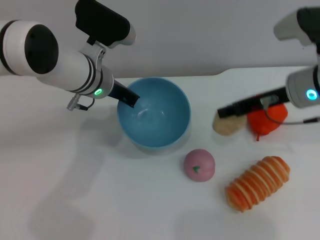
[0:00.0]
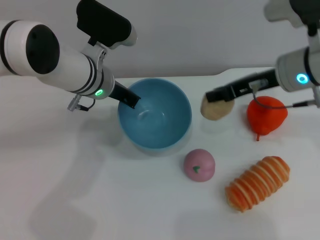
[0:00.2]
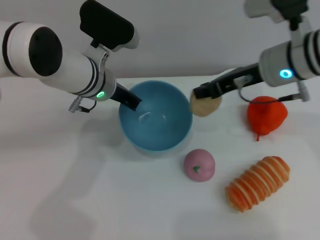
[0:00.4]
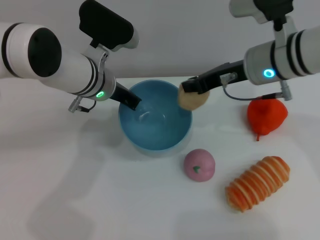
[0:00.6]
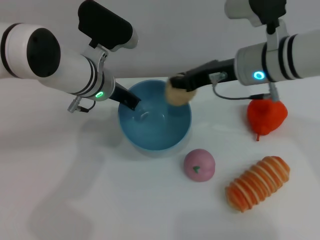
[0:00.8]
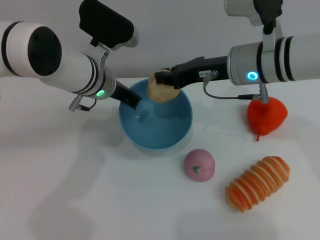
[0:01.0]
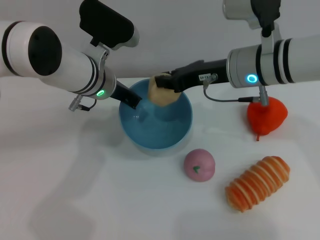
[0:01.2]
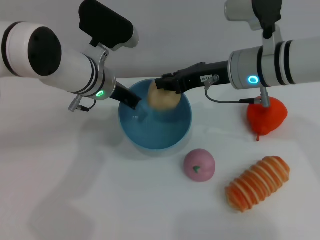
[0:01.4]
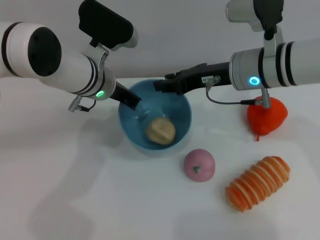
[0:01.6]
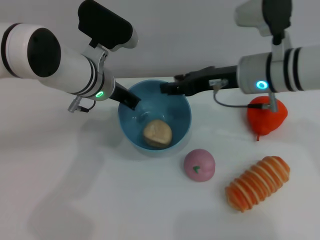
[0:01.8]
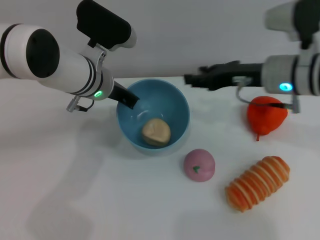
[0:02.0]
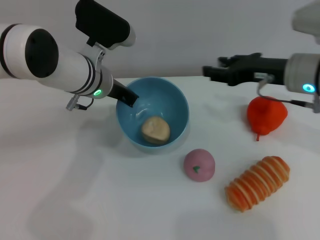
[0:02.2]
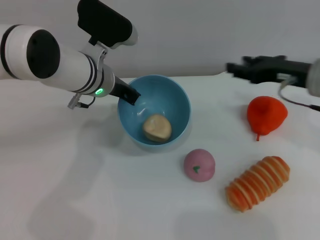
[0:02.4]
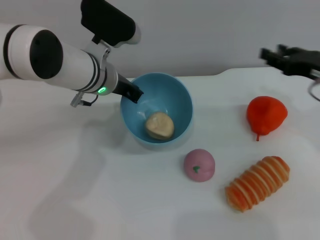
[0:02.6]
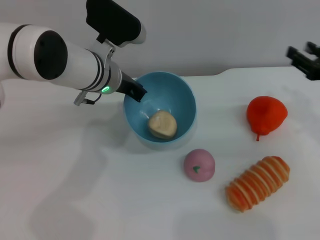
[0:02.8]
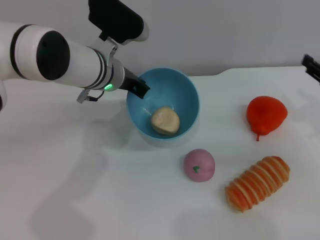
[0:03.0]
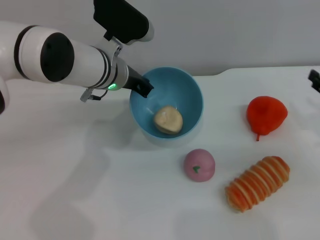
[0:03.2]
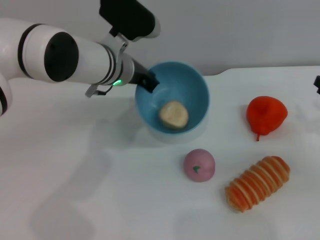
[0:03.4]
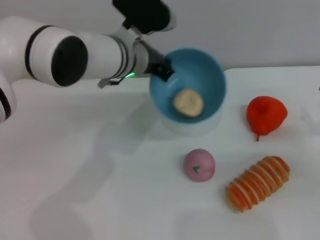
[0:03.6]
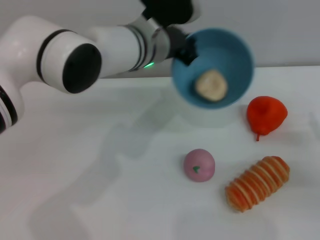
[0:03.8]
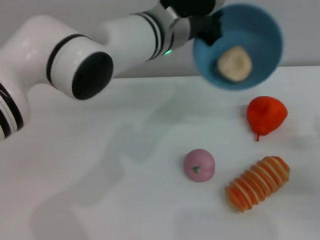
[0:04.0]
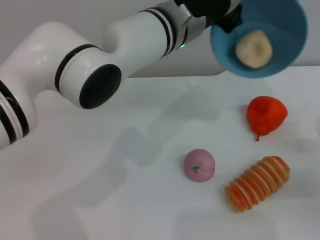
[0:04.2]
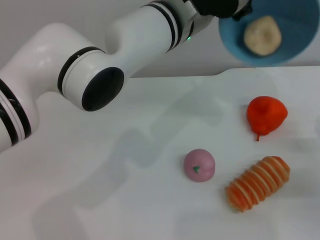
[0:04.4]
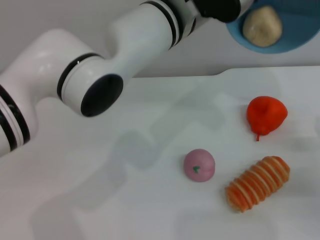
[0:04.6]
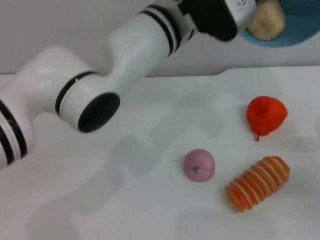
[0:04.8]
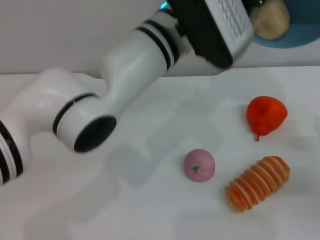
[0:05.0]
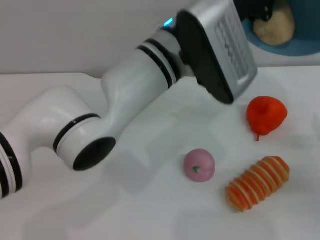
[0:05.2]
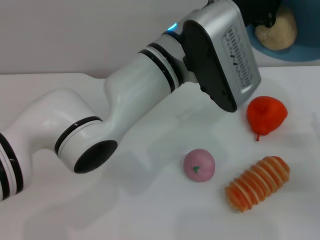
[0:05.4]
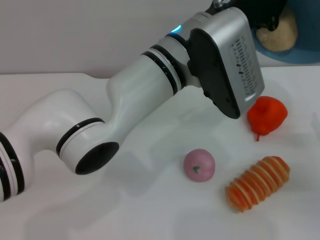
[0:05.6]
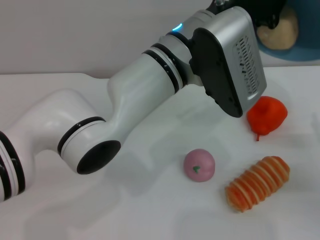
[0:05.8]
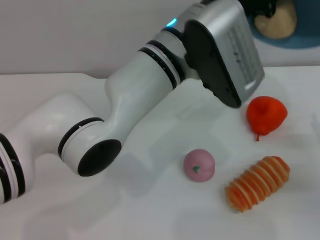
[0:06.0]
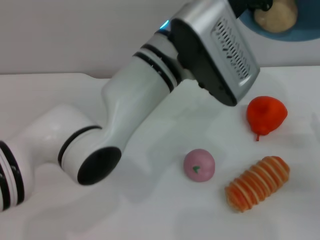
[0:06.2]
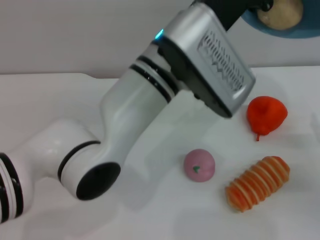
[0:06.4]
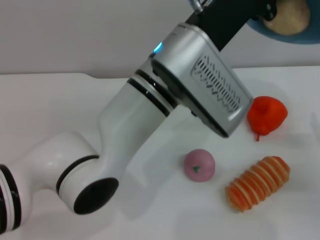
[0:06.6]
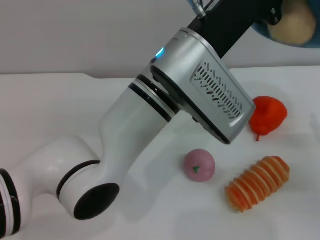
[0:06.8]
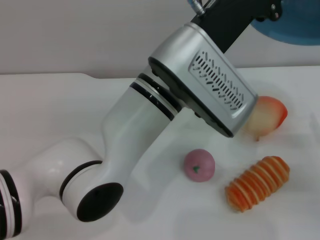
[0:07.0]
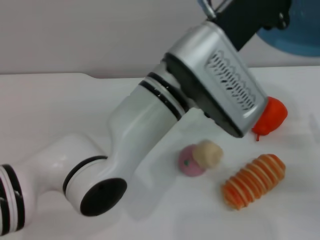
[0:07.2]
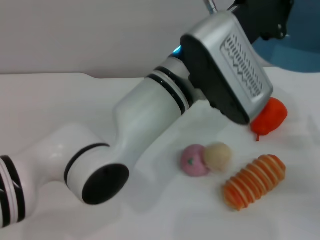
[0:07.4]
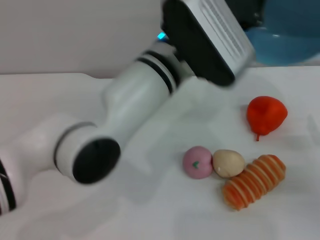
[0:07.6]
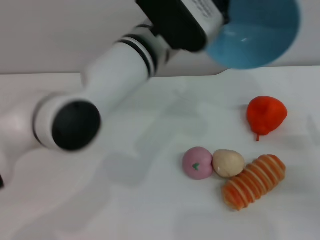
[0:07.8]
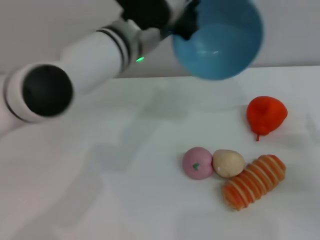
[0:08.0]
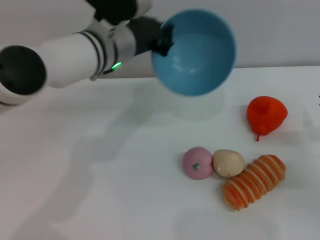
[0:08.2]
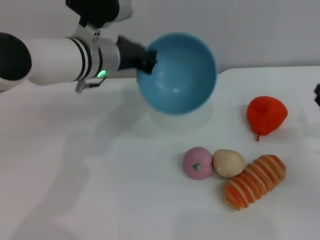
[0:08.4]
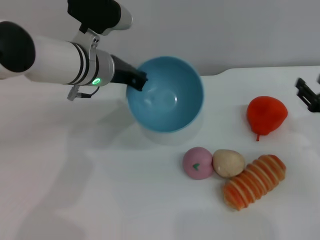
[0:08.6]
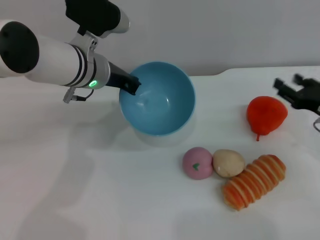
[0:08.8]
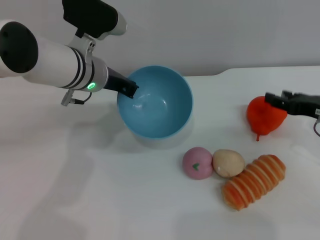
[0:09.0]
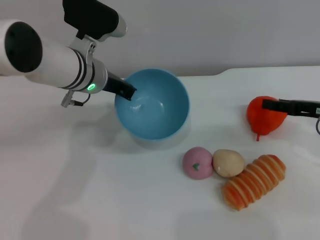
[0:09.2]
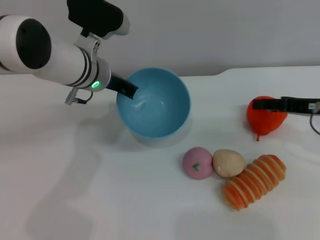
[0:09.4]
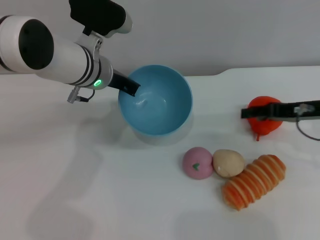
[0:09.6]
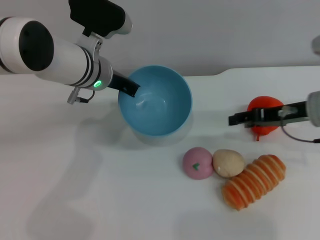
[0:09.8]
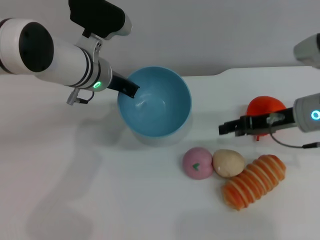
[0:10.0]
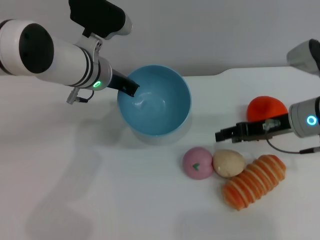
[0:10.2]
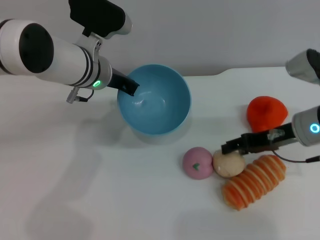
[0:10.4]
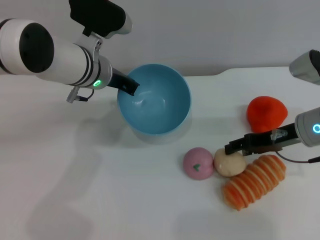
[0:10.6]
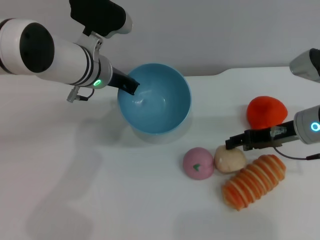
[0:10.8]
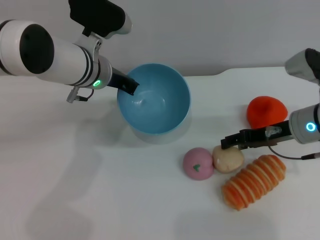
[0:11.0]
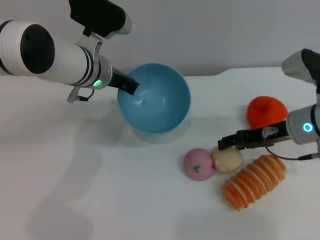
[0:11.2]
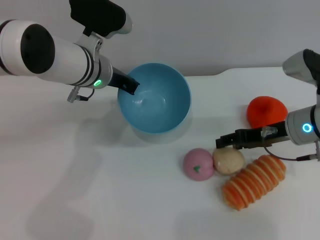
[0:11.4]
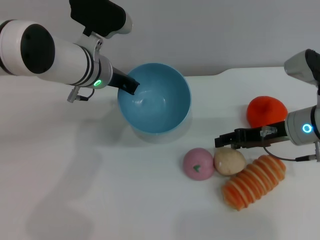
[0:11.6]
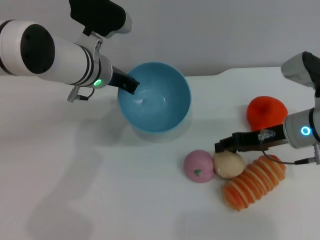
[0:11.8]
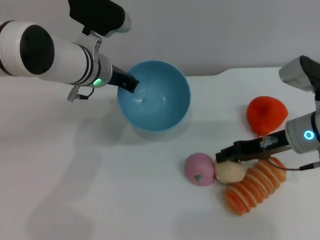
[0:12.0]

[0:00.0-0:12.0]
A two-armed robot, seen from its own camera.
Task of the whole recording: put the egg yolk pastry into the blue bowl and pour it out repeatedly.
Step, 0:00.2 to 0:01.6: Place the egg yolk pastry into the bowl.
Step, 0:01.8 to 0:07.8: Pour the egg yolk pastry out of bowl.
0:00.0 to 0:01.6: The right gripper heads to the left, covering roughly 5 cm.
0:01.6 to 0:03.0: The right gripper heads to the right, covering roughly 20 cm, and opens up.
0:03.0 to 0:04.4: The right gripper travels downward and backward by about 10 cm, while the left gripper travels to the right and upward by some 15 cm.
0:04.4 to 0:06.0: The left gripper heads backward, covering roughly 5 cm.
0:07.6 to 0:09.0: The left gripper goes approximately 15 cm to the left, forward and downward, while the right gripper moves upward and forward, about 10 cm.
0:09.0 to 0:10.4: The right gripper is displaced to the left by roughly 5 cm.
0:10.4 to 0:12.0: The two grippers keep their place.

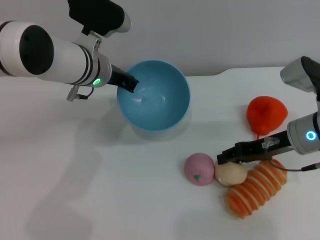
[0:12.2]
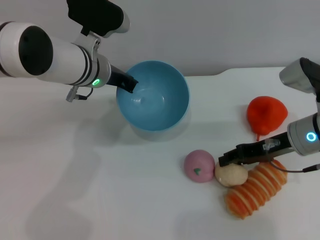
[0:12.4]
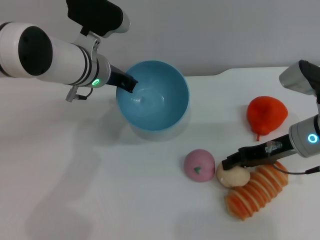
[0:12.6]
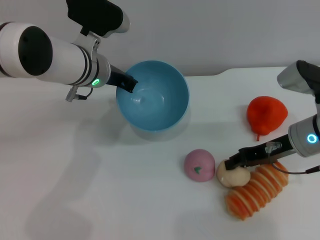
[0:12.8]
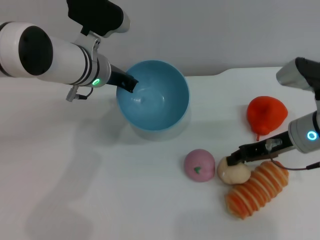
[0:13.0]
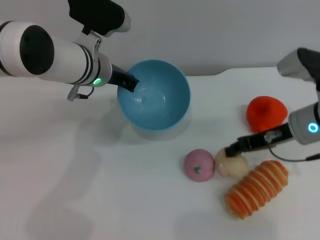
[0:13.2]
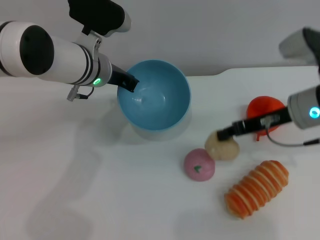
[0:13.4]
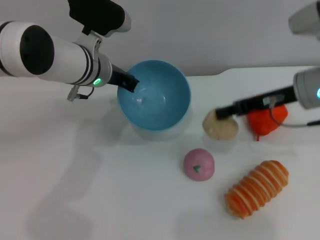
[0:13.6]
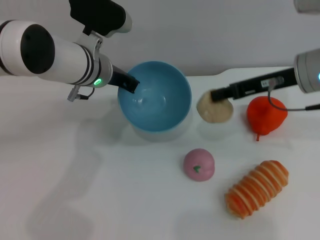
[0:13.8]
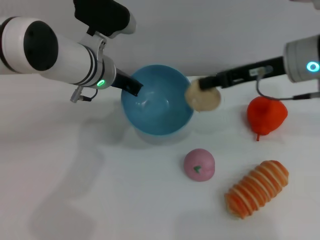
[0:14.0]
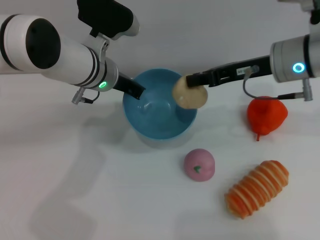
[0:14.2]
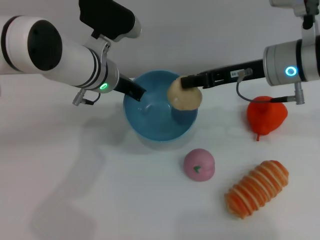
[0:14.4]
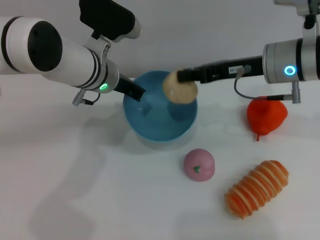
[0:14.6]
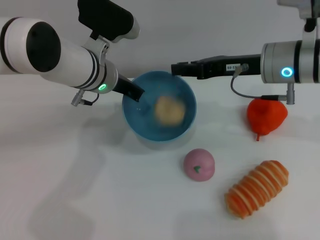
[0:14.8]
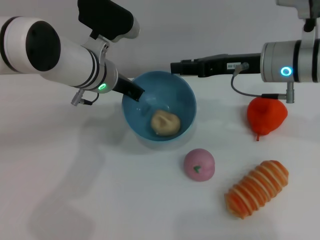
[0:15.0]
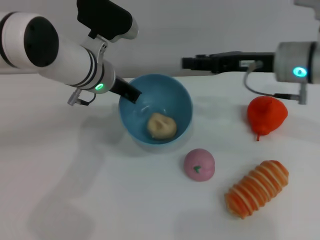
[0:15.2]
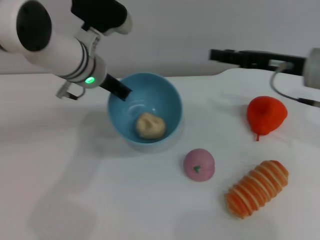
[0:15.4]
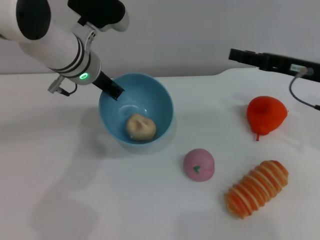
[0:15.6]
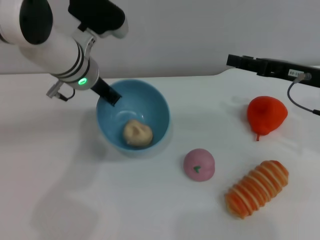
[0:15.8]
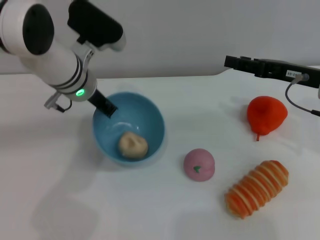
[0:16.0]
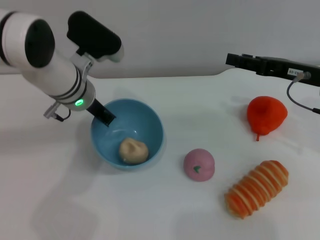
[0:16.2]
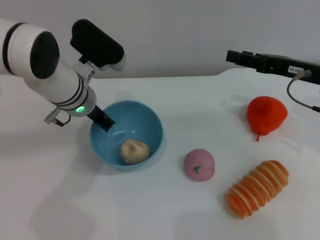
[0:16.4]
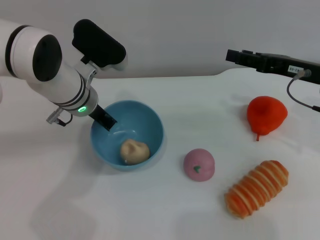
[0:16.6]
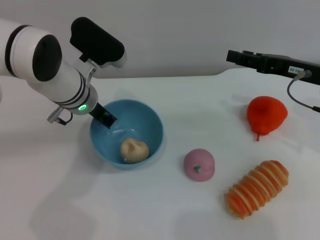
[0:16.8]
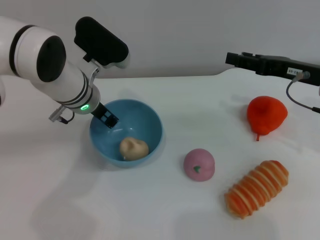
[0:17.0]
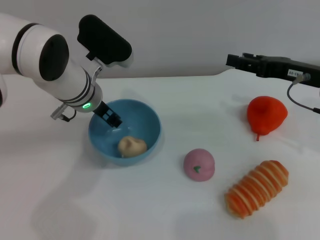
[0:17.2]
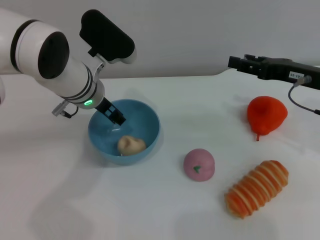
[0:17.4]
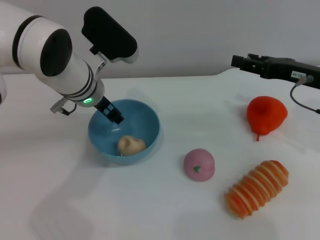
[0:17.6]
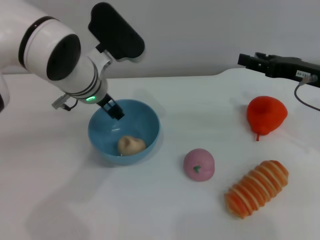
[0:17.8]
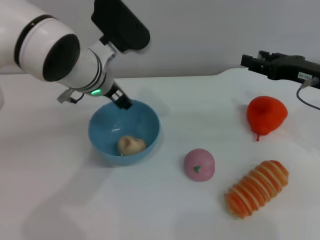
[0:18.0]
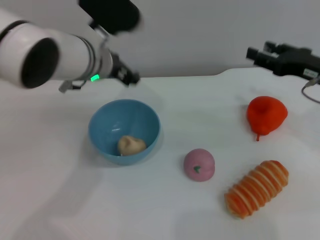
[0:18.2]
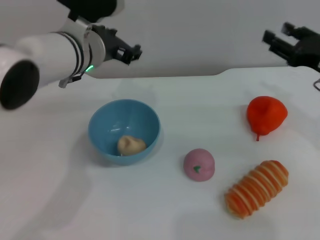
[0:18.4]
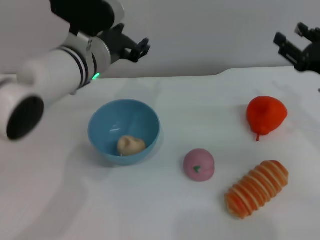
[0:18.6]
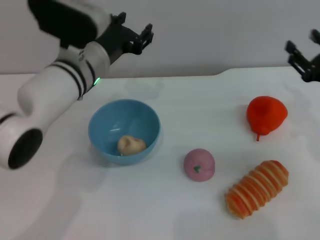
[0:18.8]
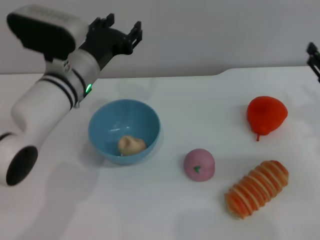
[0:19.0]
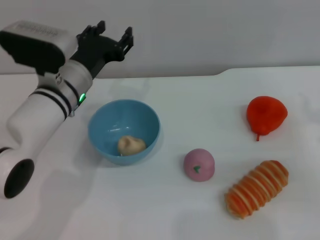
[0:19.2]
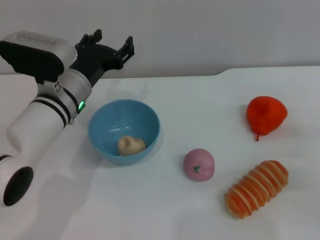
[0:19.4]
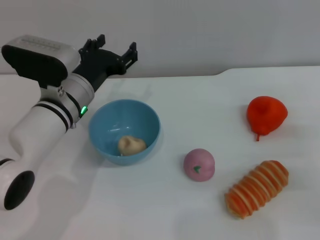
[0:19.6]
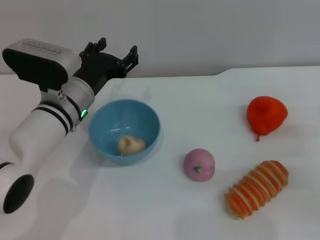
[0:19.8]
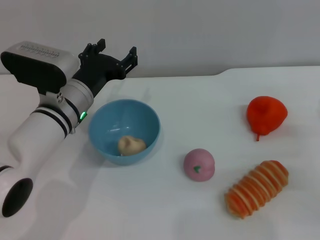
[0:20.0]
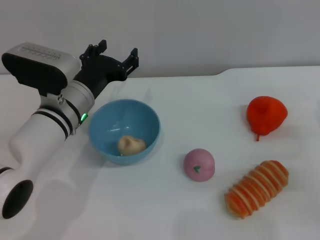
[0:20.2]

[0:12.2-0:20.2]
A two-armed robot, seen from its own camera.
Task of the whole recording: put the egg yolk pastry into the blue bowl and pour it out repeatedly.
Step, 0:14.0 to 0:15.0: Place the egg yolk pastry into the bowl.
Step, 0:15.4 to 0:18.4: Place the bowl on the table.
0:12.2 to 0:13.8: The right gripper travels upward by roughly 10 cm, and closes.
0:13.8 to 0:15.4: The right gripper opens its fingers.
0:17.0 to 0:18.6: The right gripper moves some 5 cm, while the left gripper opens up.
0:18.6 to 0:20.2: The left gripper shifts roughly 10 cm downward. The right gripper goes some 10 cm downward and backward.
